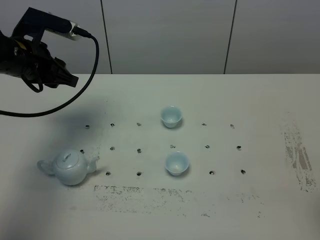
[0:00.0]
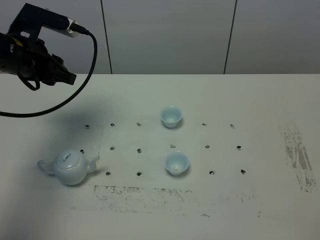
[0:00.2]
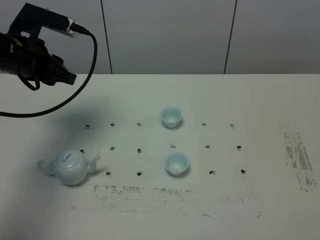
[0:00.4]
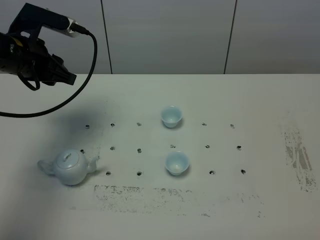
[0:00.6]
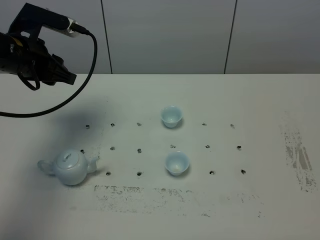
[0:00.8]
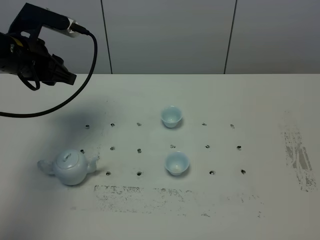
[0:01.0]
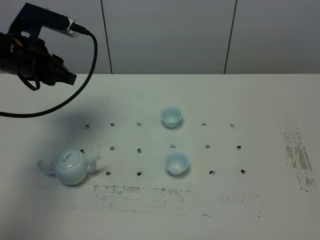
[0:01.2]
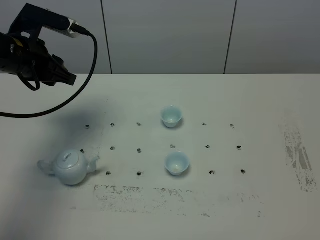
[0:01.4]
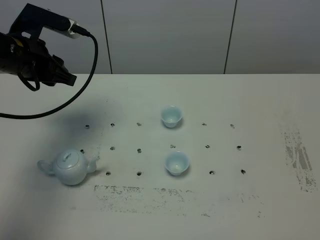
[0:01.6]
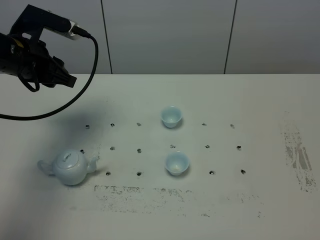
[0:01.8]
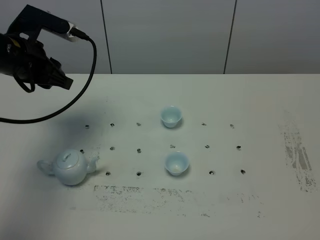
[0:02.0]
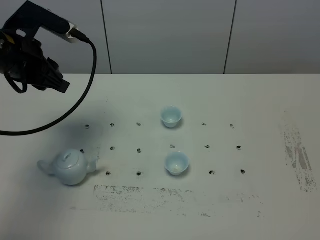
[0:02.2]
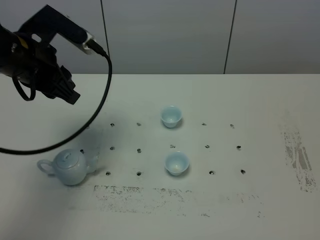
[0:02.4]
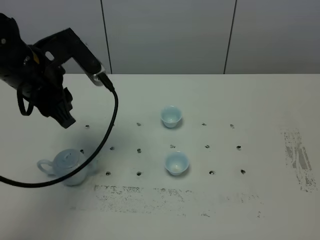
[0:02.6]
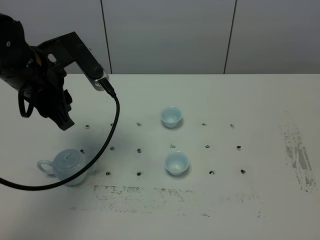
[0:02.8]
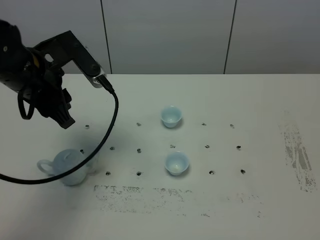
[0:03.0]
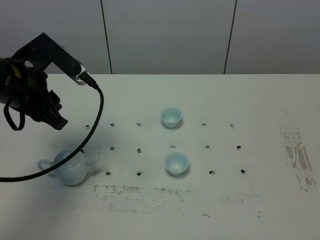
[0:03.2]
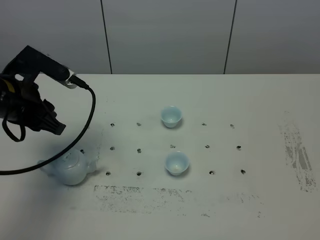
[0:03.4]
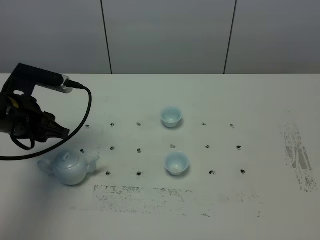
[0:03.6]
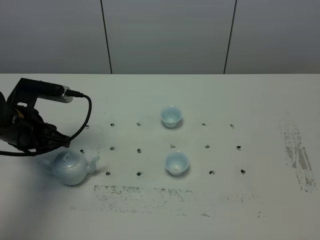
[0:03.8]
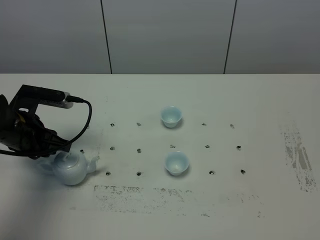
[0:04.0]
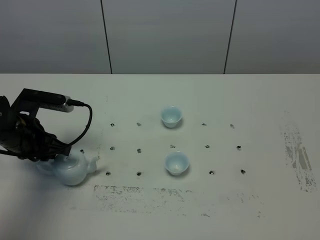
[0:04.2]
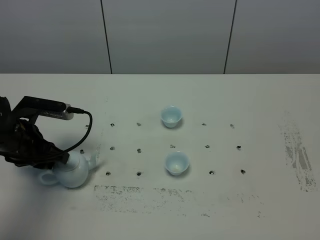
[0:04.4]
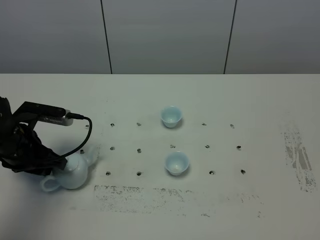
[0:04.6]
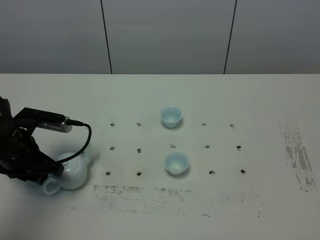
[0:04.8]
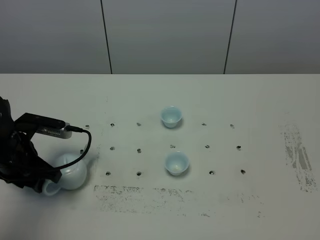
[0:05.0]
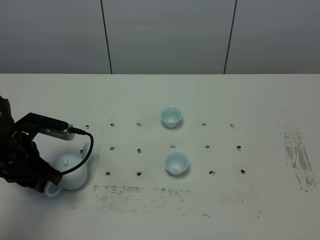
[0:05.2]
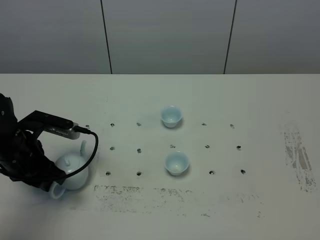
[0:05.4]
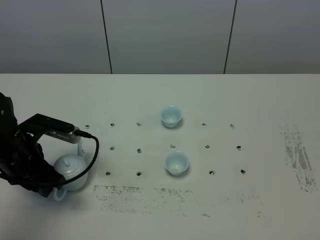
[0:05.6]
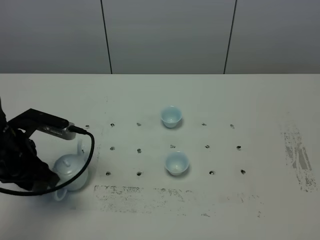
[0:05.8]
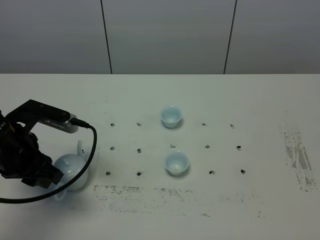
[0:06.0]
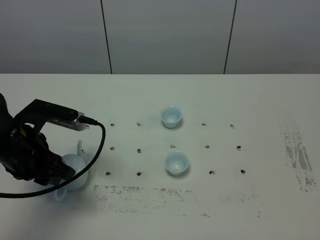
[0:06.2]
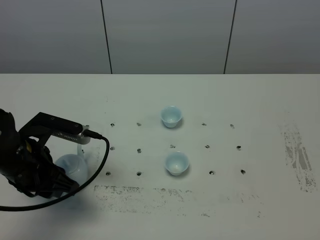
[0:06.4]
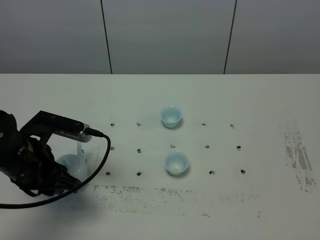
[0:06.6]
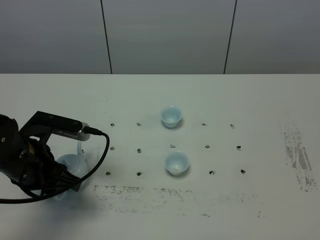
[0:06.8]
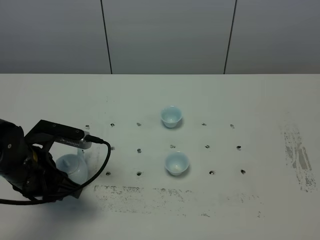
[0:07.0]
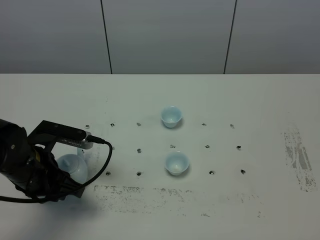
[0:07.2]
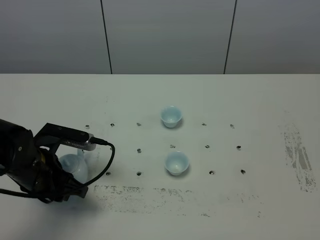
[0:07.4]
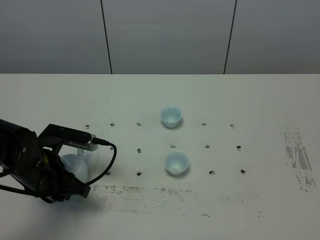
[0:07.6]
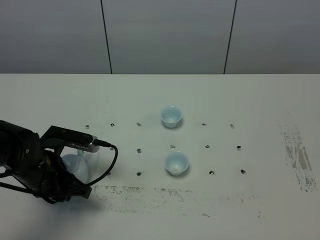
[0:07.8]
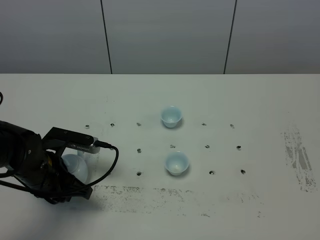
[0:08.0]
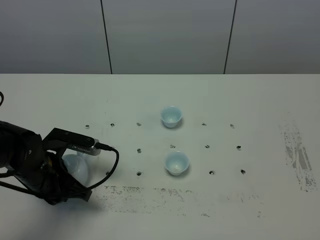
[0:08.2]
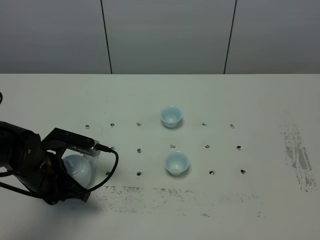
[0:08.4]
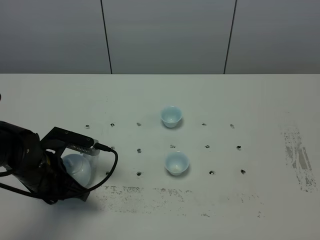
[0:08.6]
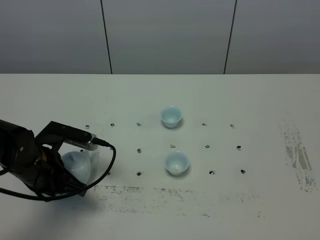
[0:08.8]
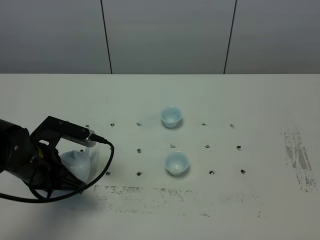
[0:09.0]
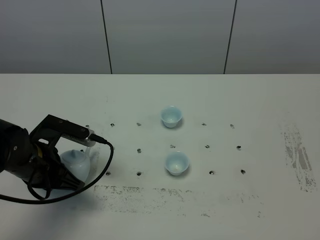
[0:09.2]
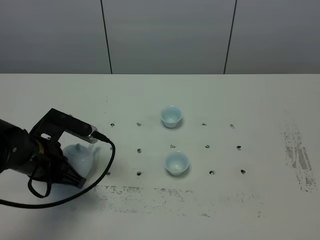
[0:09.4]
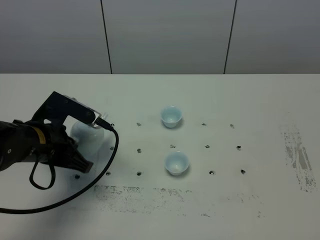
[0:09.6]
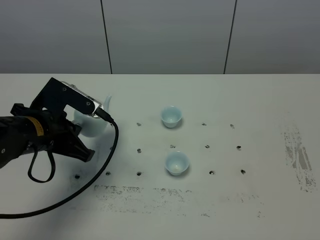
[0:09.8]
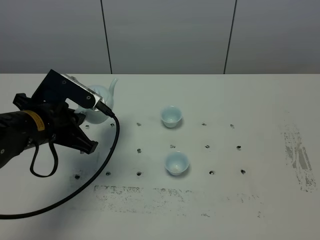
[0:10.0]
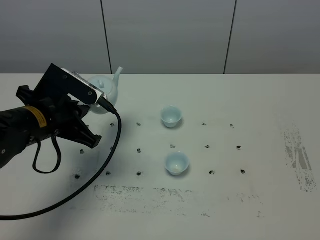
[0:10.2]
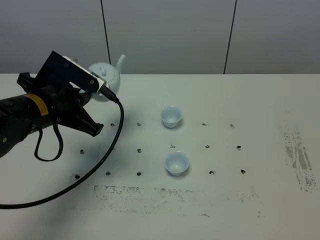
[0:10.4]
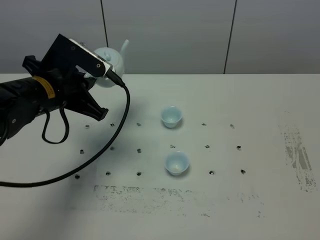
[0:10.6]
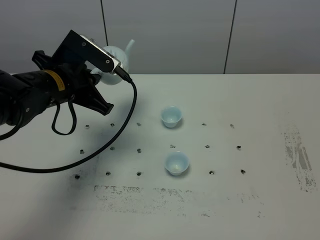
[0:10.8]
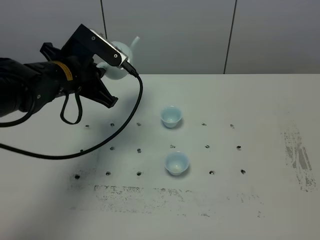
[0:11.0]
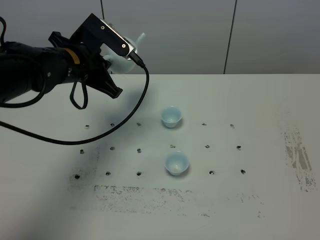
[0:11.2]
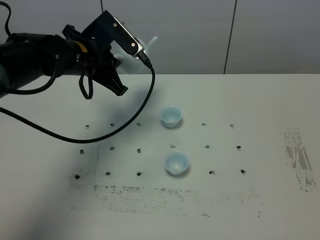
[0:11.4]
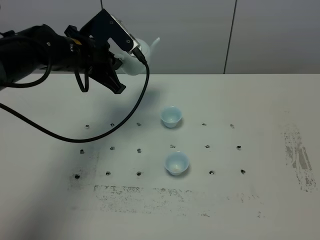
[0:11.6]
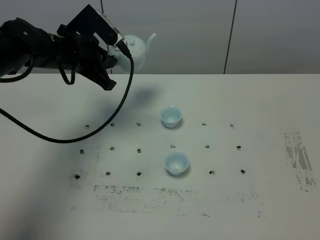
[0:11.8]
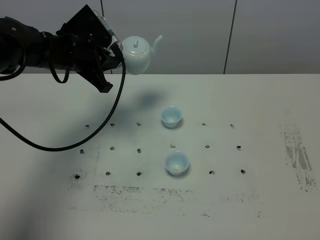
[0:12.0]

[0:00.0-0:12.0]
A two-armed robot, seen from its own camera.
Task of the whole recording: grasp the blue porcelain teapot and pour the tea into the two blue porcelain teacups one by one, put the blue porcelain teapot back in its original place.
Step, 0:00.0 to 0:09.4: Pick up the teapot with the left gripper.
0:01.6 to 0:03.0: The left gripper heads backward, covering approximately 5 cm.
0:03.0 to 0:04.4: The left gripper travels downward and to the left by some 15 cm.
0:04.4 to 0:06.0: The left gripper shifts some 5 cm upward.
0:06.0 to 0:07.6: The left gripper shifts approximately 5 cm downward.
0:07.6 to 0:09.0: The left gripper closes its fingers.
0:09.0 to 0:10.4: The left gripper travels upward by some 10 cm.
0:10.4 to 0:12.0: The left gripper travels forward by approximately 10 cm.

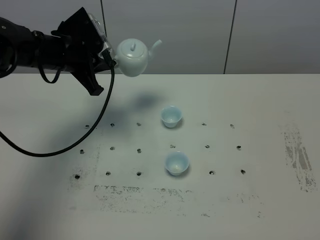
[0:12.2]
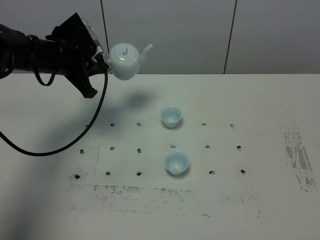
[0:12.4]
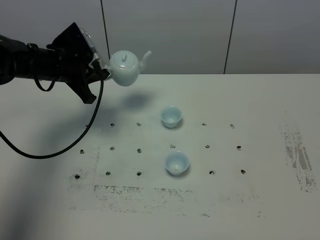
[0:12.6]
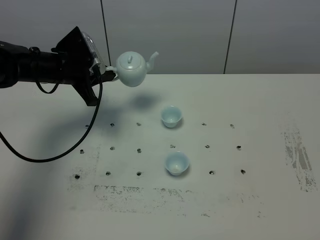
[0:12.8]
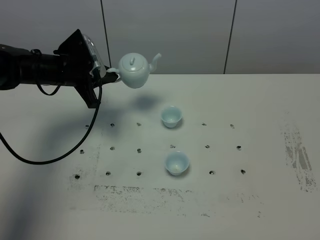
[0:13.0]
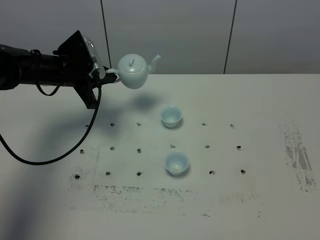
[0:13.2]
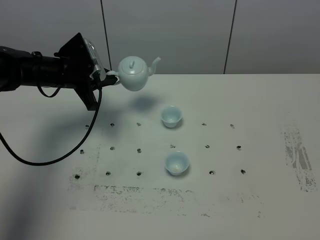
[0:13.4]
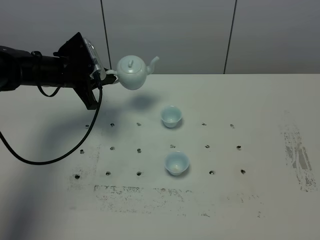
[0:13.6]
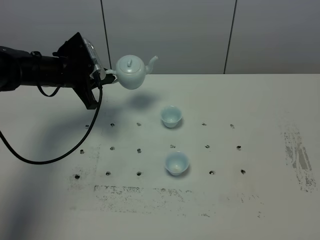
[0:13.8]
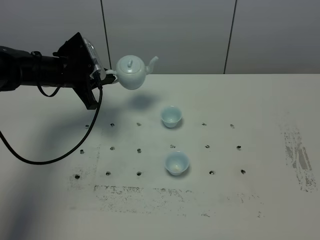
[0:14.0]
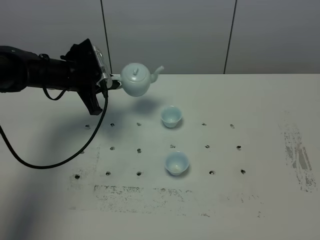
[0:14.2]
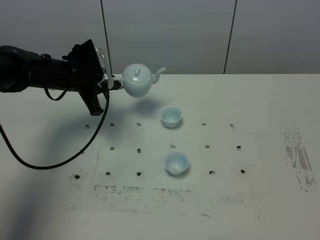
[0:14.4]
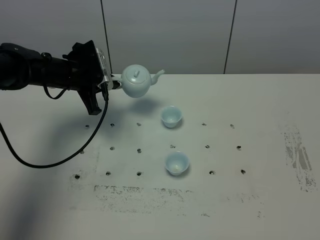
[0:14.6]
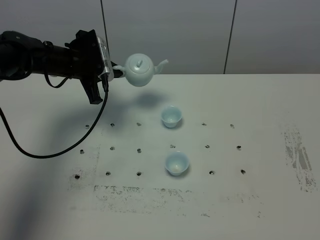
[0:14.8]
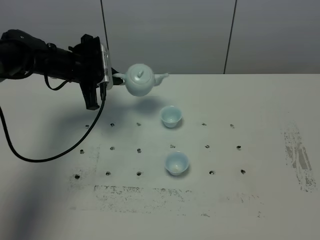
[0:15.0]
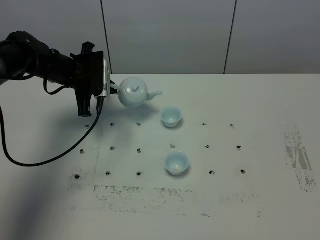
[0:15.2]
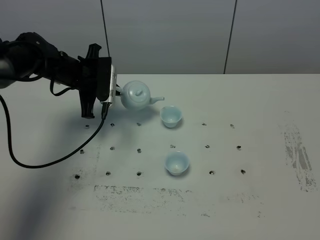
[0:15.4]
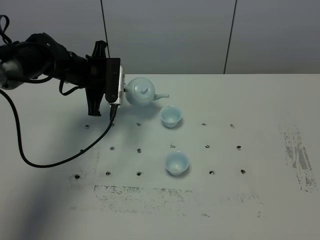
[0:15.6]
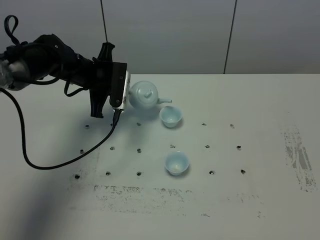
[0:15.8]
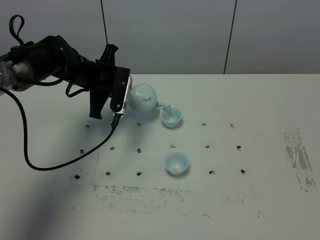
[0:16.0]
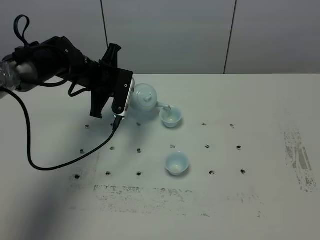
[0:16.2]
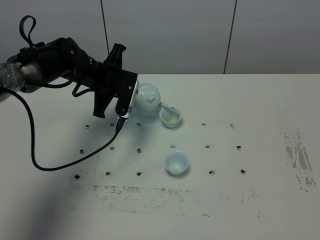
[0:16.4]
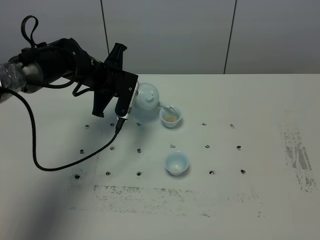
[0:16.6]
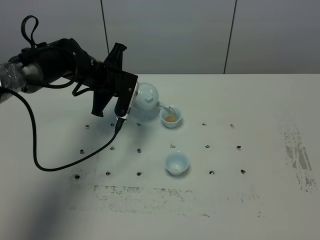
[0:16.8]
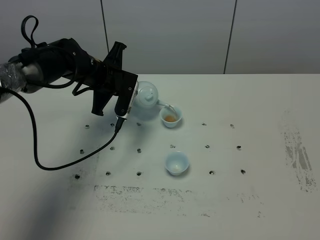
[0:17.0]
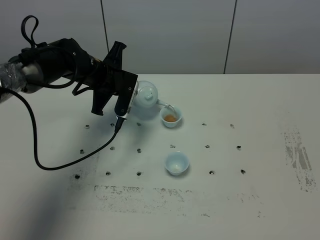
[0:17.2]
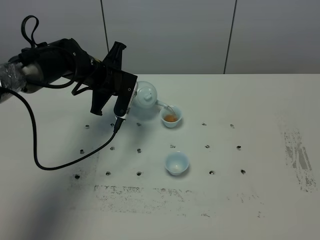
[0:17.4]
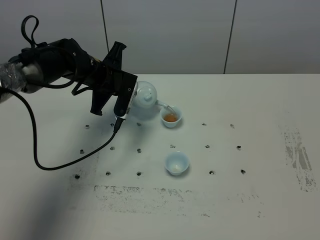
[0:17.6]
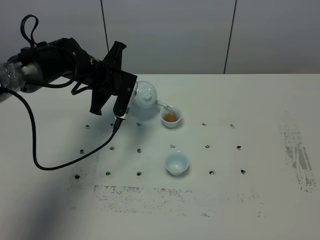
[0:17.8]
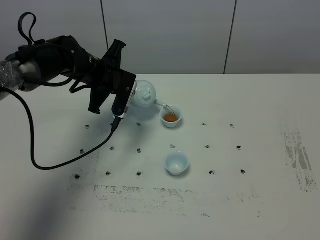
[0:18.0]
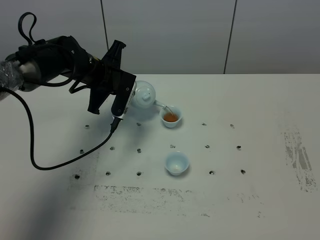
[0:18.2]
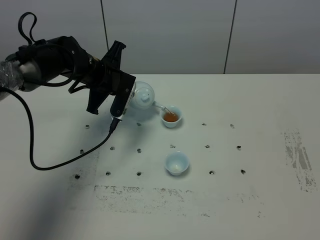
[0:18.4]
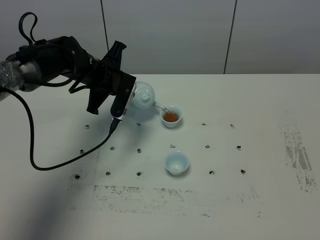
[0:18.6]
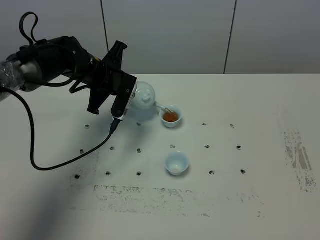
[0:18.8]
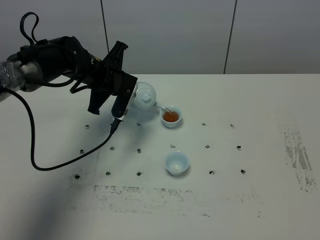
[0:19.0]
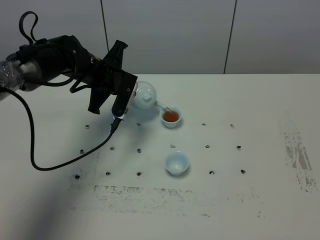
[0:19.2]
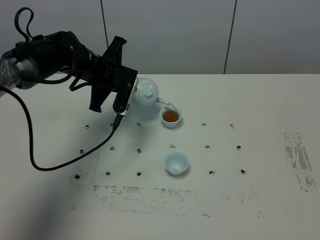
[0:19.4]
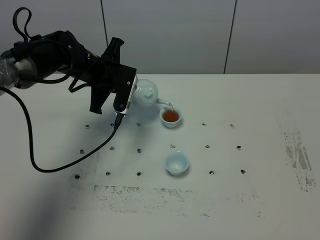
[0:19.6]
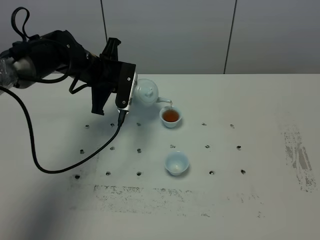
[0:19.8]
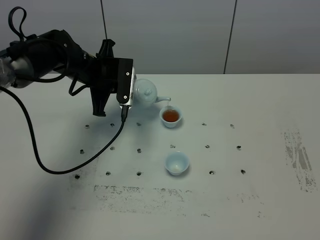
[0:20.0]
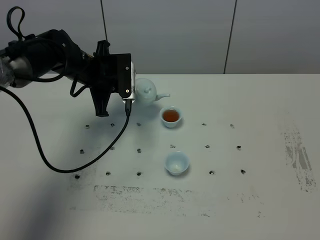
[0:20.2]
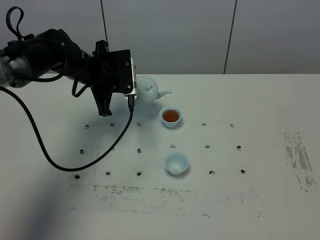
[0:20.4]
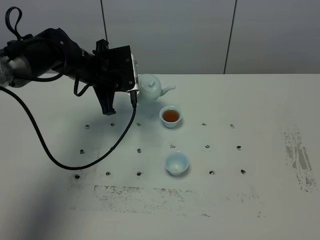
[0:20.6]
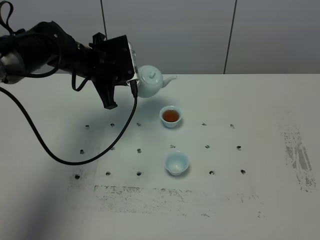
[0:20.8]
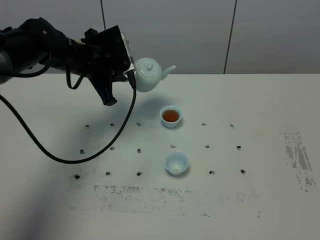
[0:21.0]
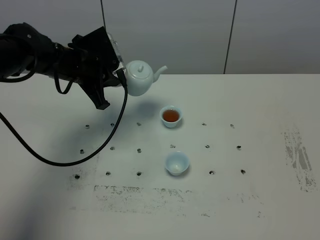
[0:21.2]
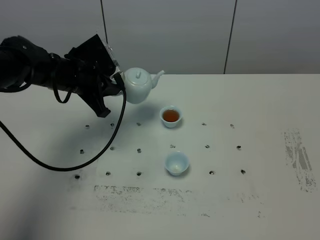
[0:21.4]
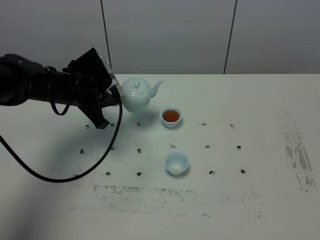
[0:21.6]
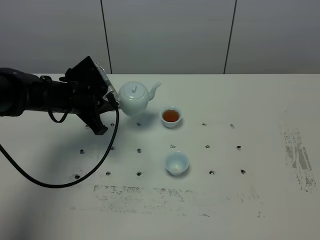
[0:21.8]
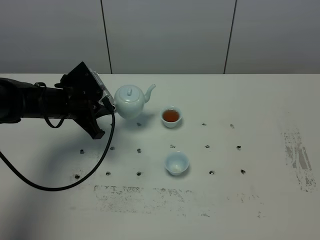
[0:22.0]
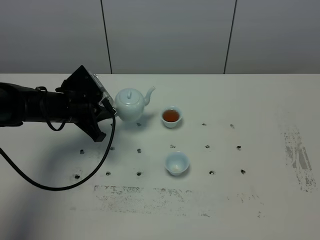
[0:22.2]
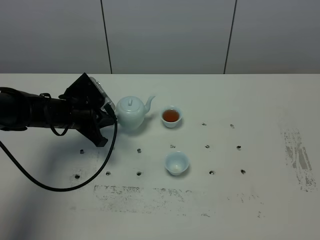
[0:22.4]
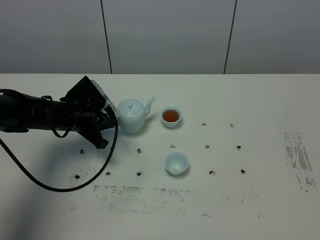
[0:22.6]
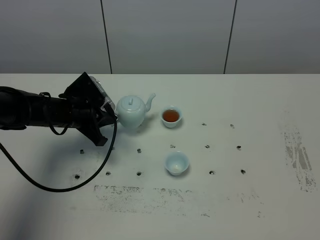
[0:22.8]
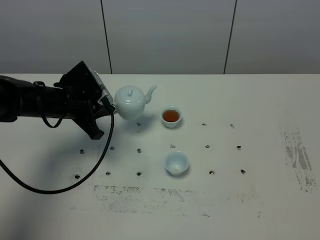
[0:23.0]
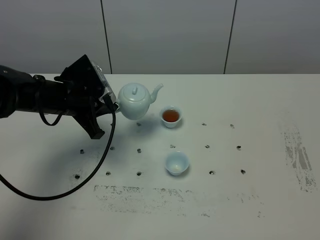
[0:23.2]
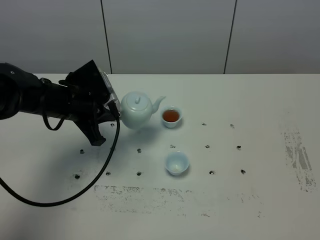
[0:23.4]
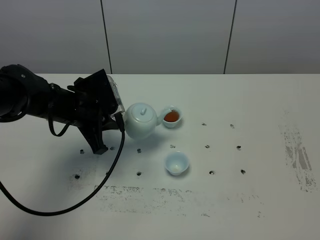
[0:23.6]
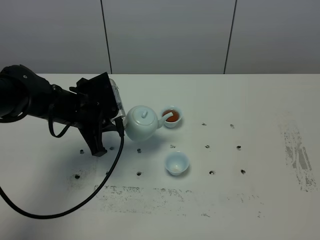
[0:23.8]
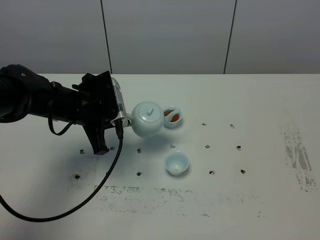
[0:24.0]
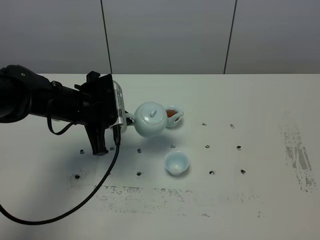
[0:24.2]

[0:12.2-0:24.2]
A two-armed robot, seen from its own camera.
Task of the whole recording: grasp the blue porcelain teapot and pour the tea into the two blue porcelain teacups one by one, put the blue porcelain teapot back in its original place.
Step, 0:12.2 to 0:20.0: Pour tea into the teacup with the left gripper.
0:12.2 to 0:13.8: The left gripper is displaced downward by about 5 cm.
0:15.2 to 0:16.6: The left gripper moves to the right, approximately 5 cm.
0:16.6 to 0:18.2: The two grippers keep their place.
0:18.2 to 0:19.8: The grippers make only small movements.
0:19.8 to 0:21.2: The left gripper shifts by approximately 5 cm.
0:21.2 to 0:22.6: The left gripper moves downward, about 10 cm.
0:22.6 to 0:24.2: The left gripper travels upward by approximately 5 cm.
